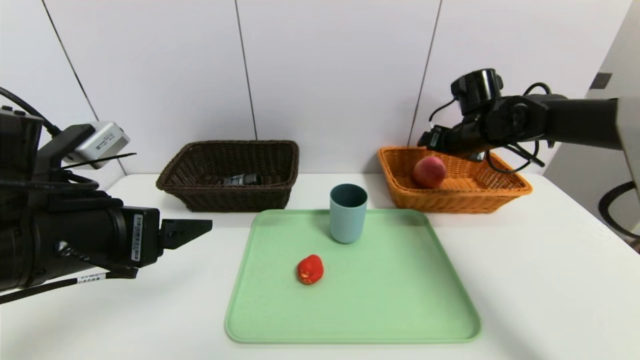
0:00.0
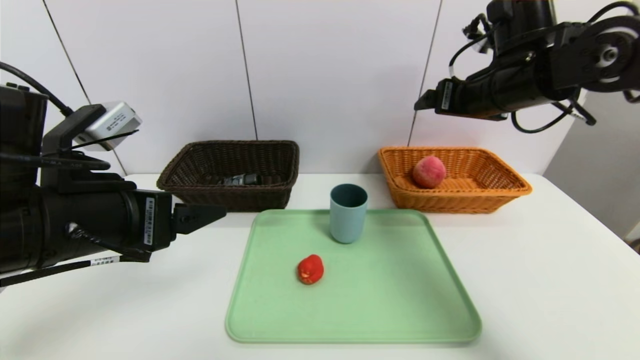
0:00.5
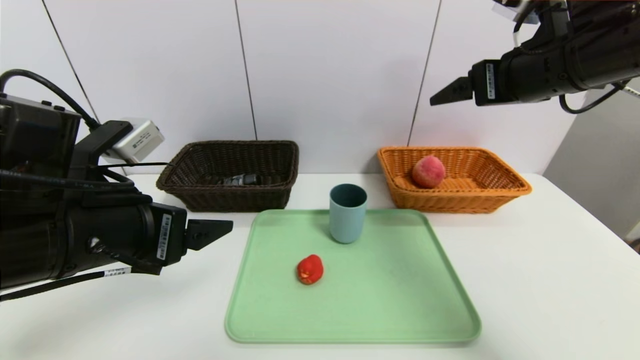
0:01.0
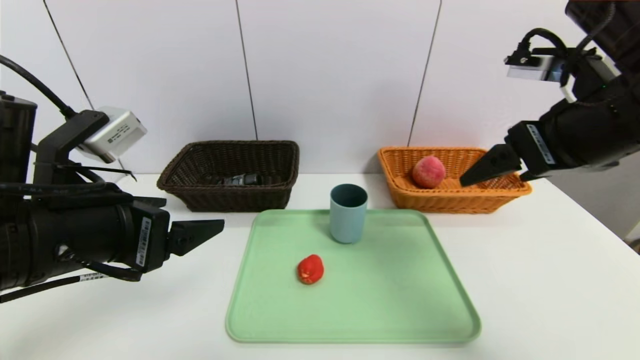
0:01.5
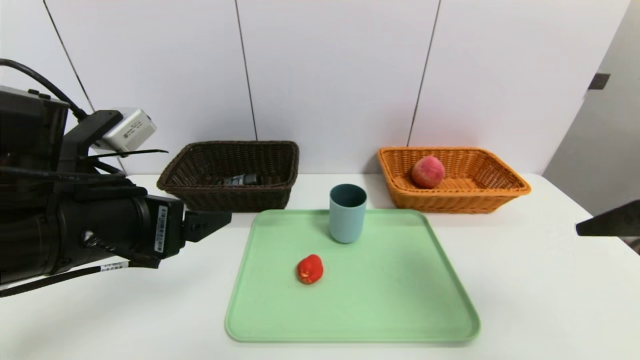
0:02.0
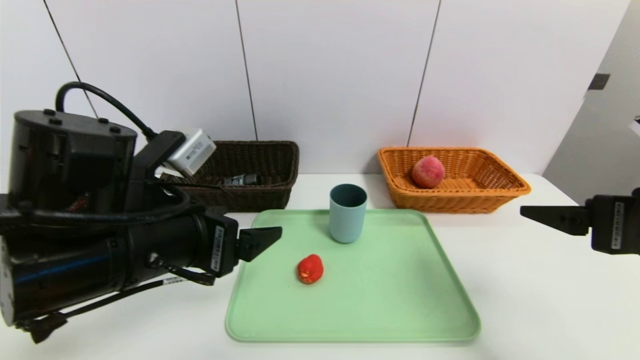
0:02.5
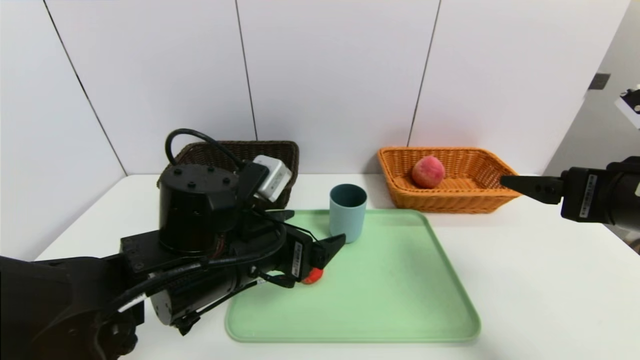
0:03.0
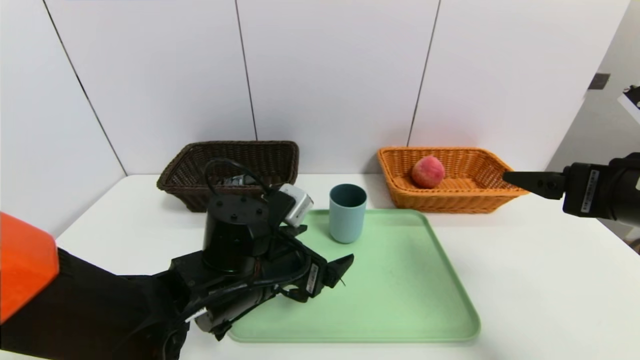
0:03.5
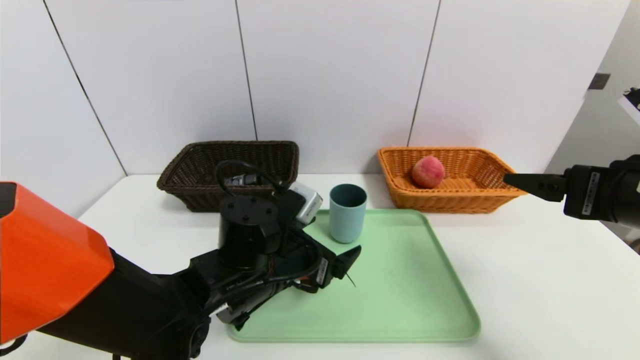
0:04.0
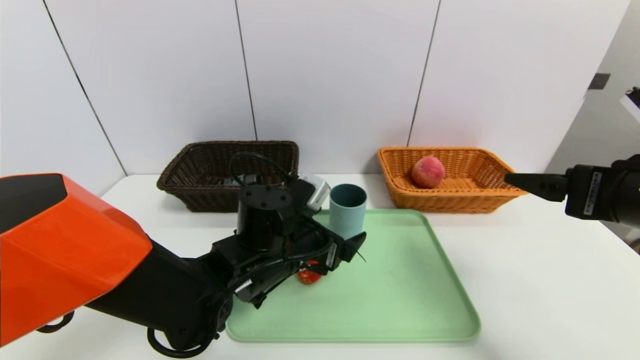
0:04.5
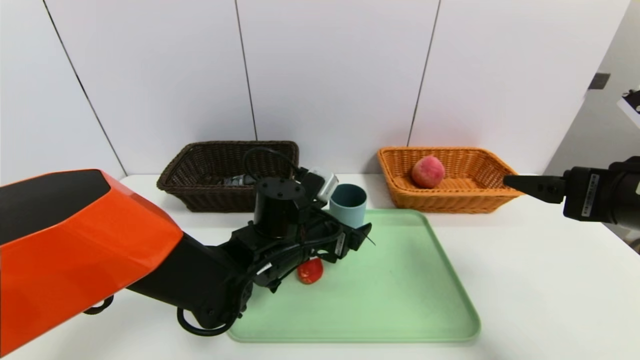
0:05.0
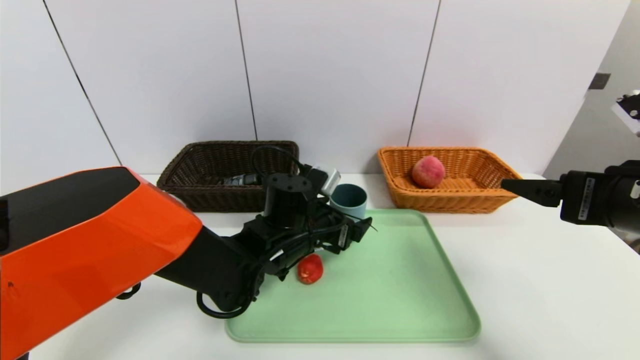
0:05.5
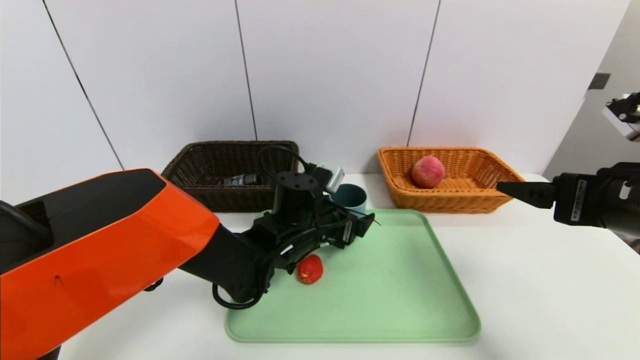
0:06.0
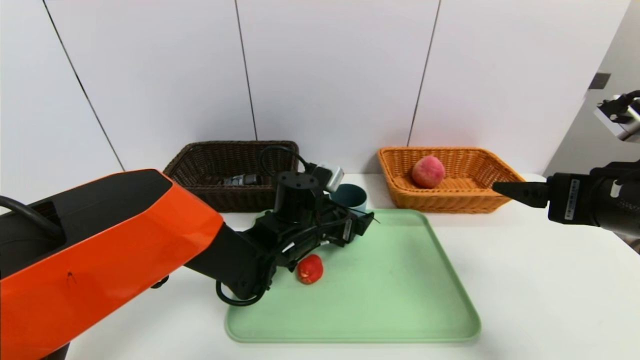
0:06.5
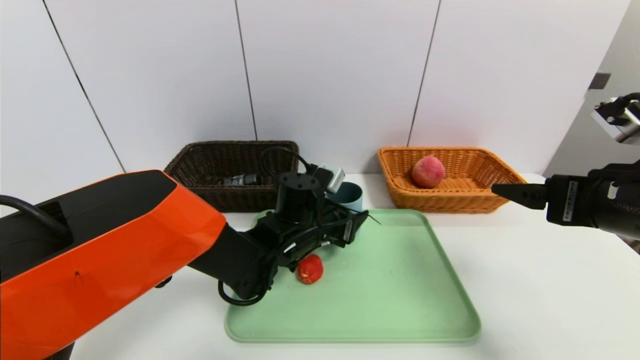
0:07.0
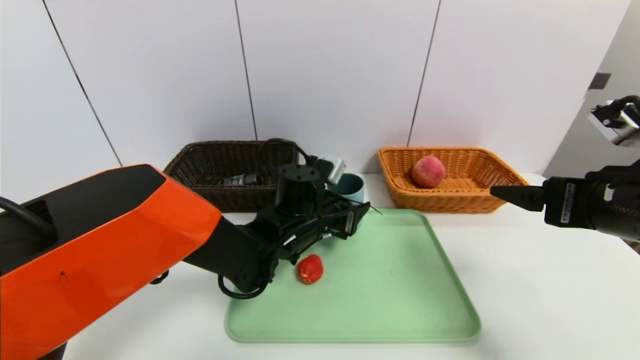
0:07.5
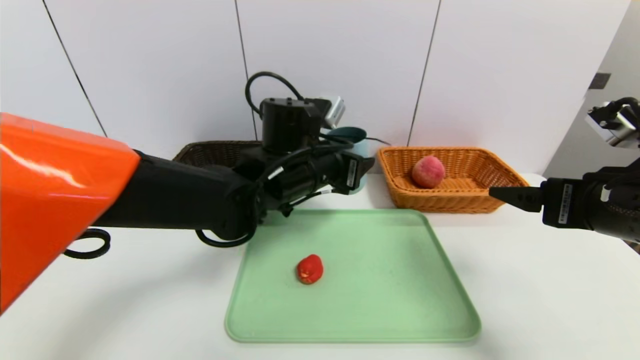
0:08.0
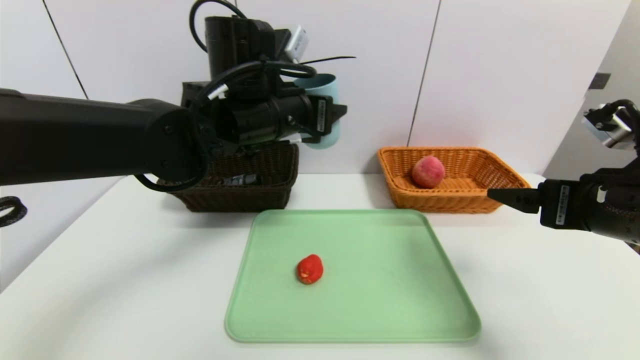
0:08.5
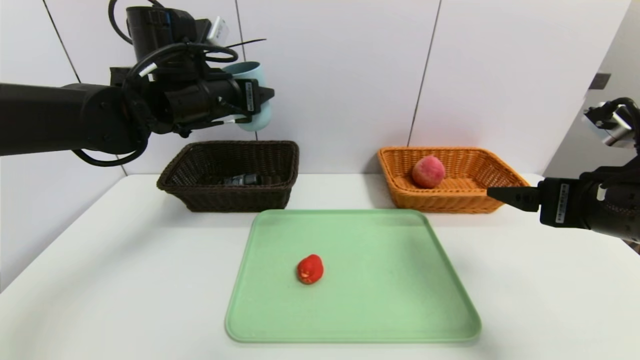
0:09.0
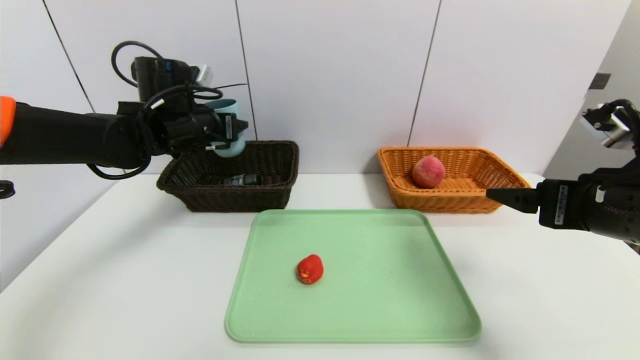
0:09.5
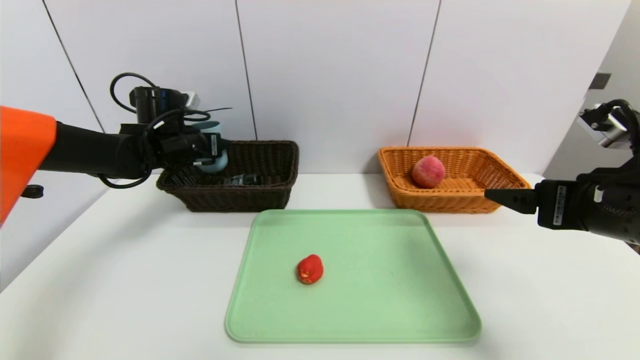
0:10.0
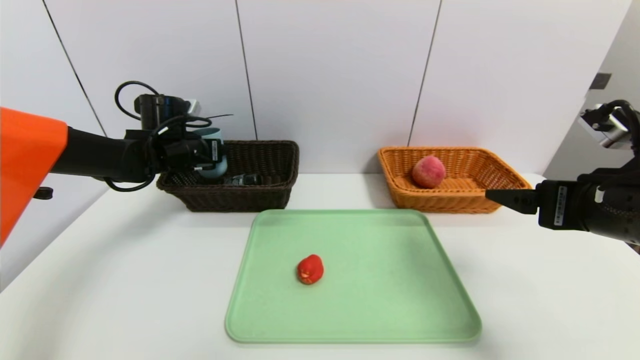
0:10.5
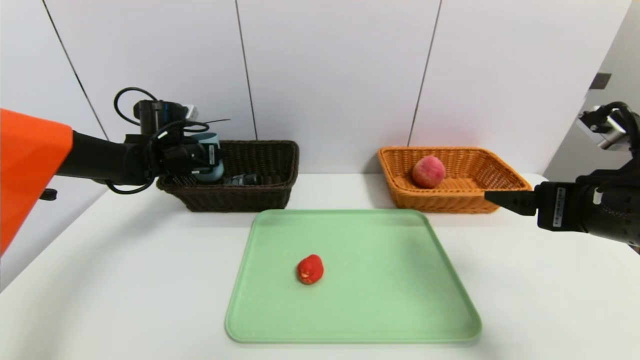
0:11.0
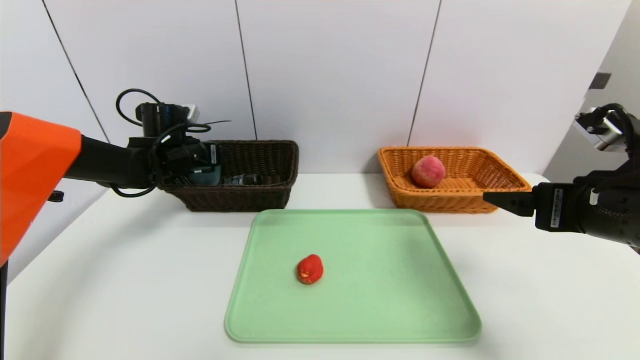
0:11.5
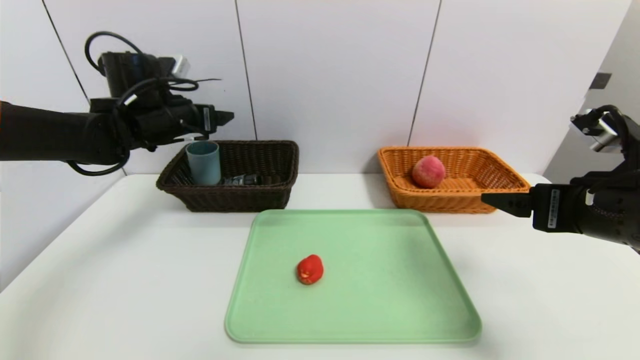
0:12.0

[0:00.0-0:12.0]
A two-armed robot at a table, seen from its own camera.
Task of the whole recording: place the food in the right basket with the right gripper, and place the non food items in the left basket with the left gripper.
Step, 0:00.0 to 0:11.5: Grasp the blue cup and put it in the left basket.
0:00.0 to 0:02.0: The right gripper moves backward, roughly 30 cm.
0:02.0 to 0:04.0: The left gripper shifts approximately 20 cm to the right, downward and forward; the right gripper moves downward, roughly 5 cm.
0:04.0 to 0:06.0: The left gripper is displaced forward by roughly 10 cm.
0:06.0 to 0:08.0: The left gripper heads upward, covering about 10 cm, and closes up.
0:08.0 to 0:10.0: The left gripper heads to the left and forward, covering some 25 cm.
0:10.0 to 0:12.0: The left gripper goes roughly 5 cm upward, and opens up.

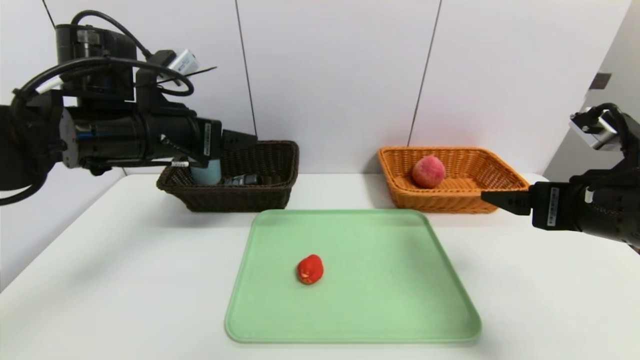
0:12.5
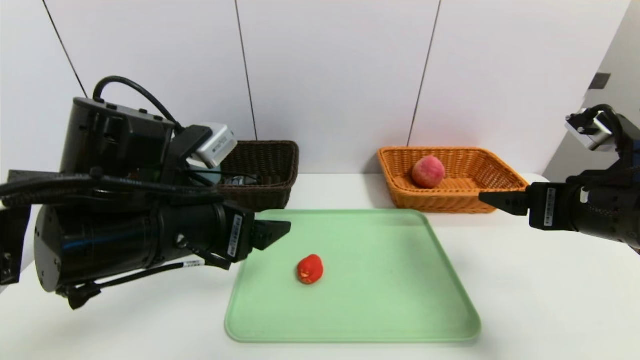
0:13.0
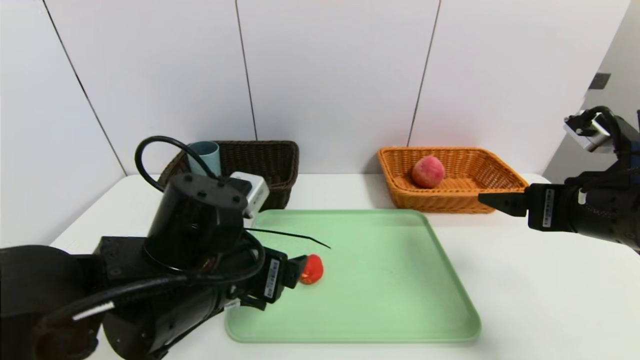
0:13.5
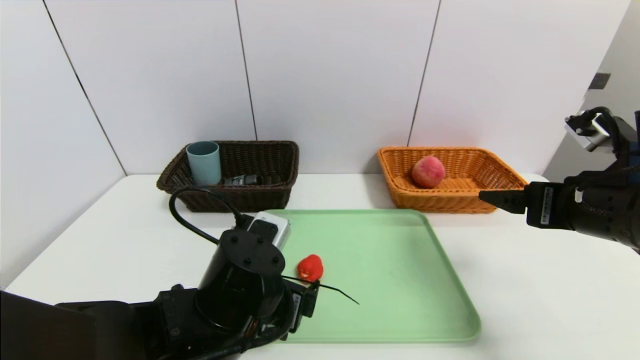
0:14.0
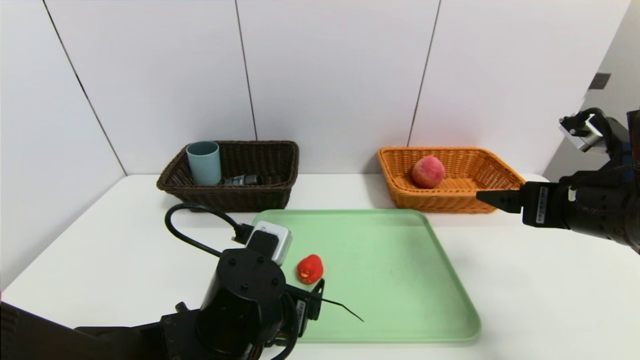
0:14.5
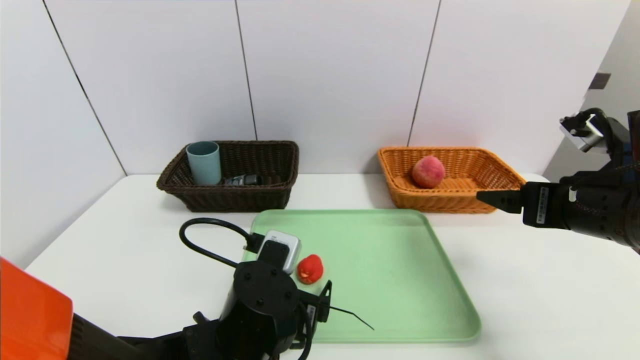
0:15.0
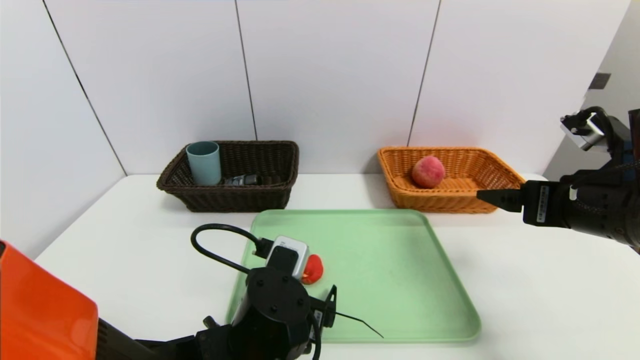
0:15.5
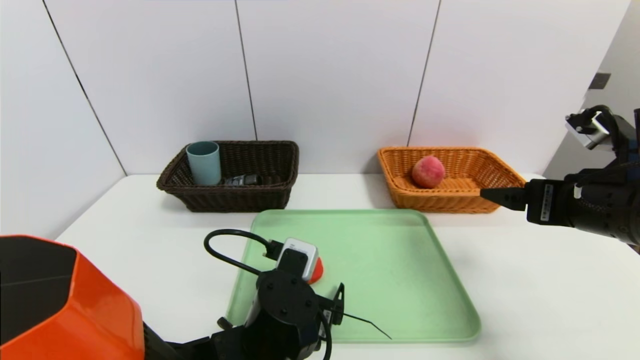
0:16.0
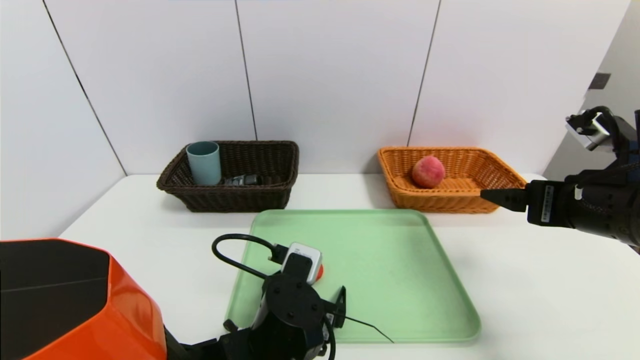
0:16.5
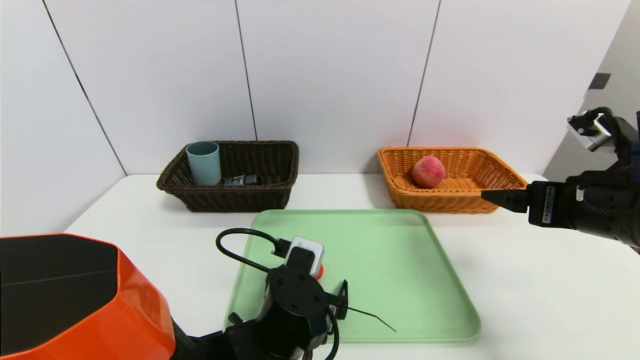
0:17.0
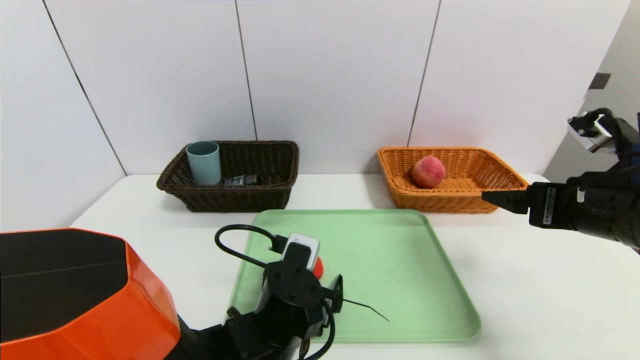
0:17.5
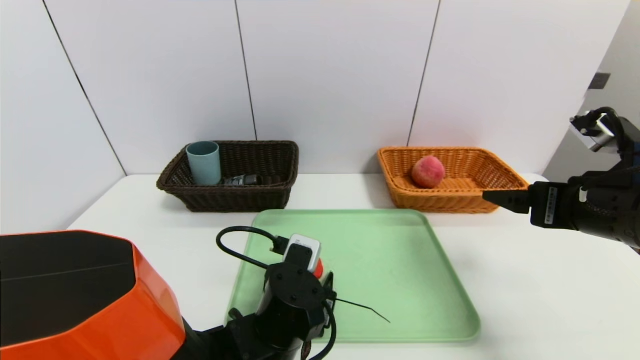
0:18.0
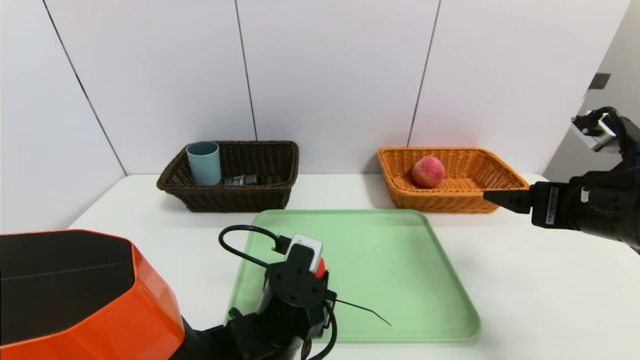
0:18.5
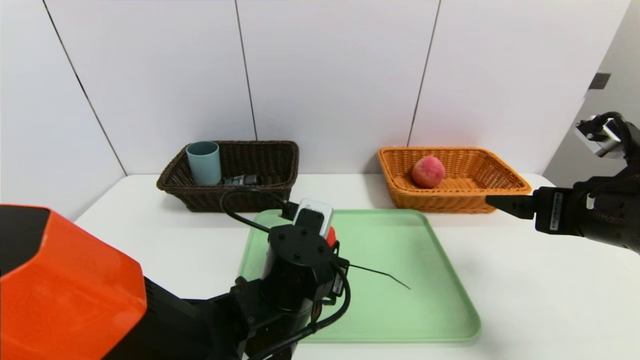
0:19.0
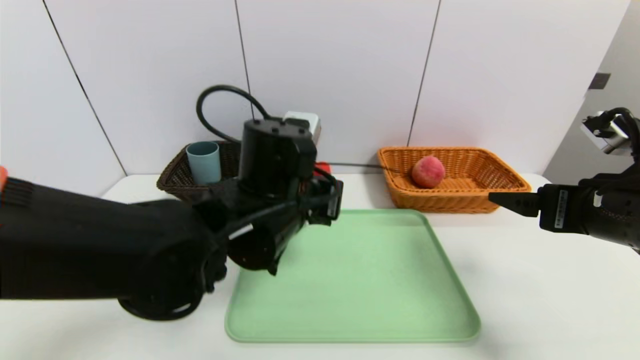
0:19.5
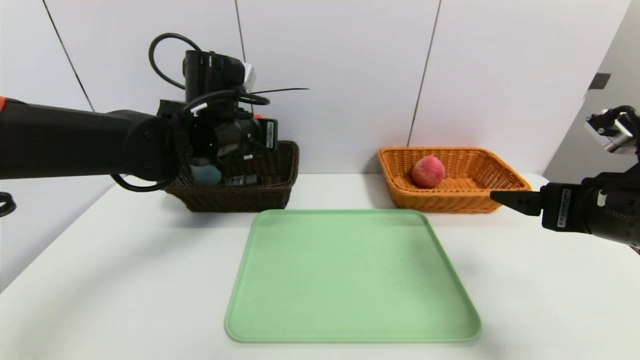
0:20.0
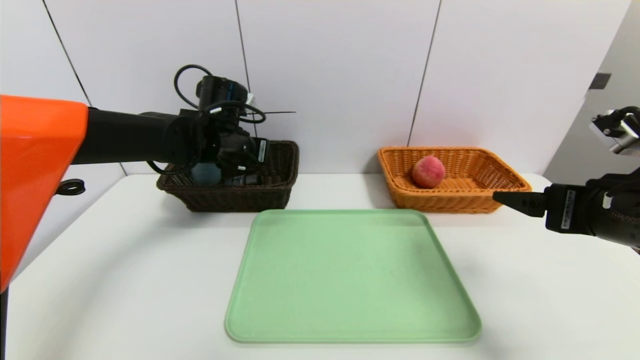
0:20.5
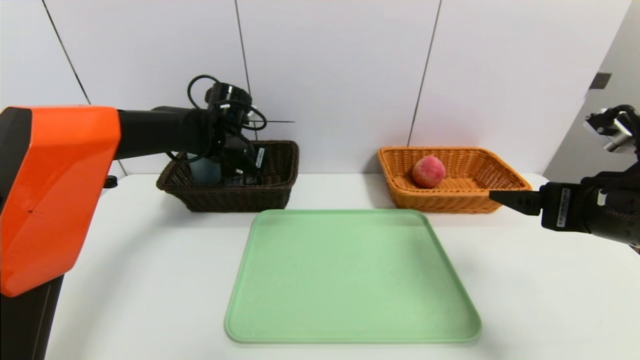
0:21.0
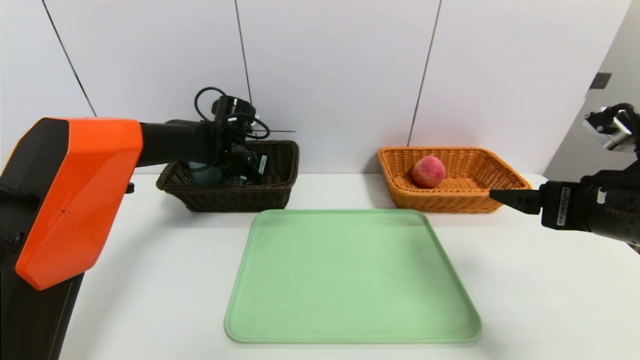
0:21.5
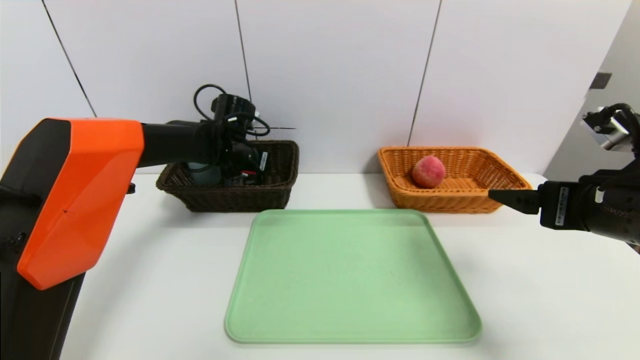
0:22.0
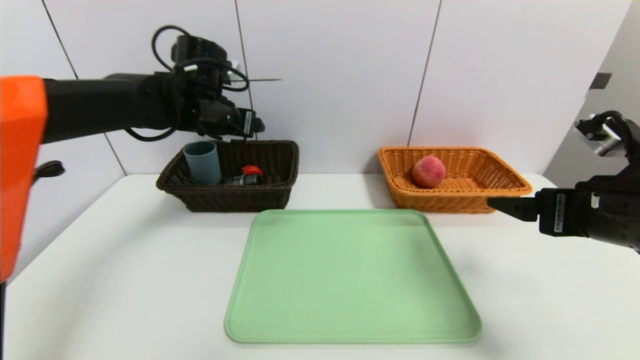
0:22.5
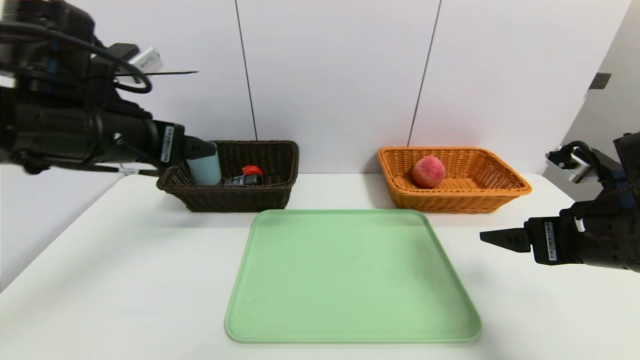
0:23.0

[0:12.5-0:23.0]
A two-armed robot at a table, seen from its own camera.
Task of the whole recording: place the food in the right basket with the right gripper, and place the non food items in the left basket with the left gripper.
Step, 0:12.5 to 0:22.0: Grasp the red duck and put it in the left basket.
0:12.5 to 0:14.5: The left gripper is displaced downward, to the right and backward by approximately 25 cm.
0:14.5 to 0:16.5: The left gripper moves some 5 cm.
0:16.5 to 0:19.0: The left gripper moves about 5 cm, and closes up.
0:19.0 to 0:21.0: The left gripper is displaced forward and to the left by approximately 25 cm.
0:21.0 to 0:23.0: The left gripper goes some 20 cm backward and upward, and opens its fingers.
